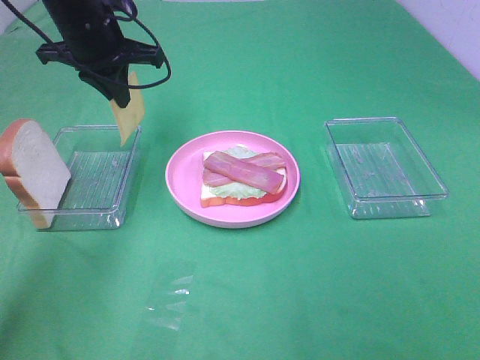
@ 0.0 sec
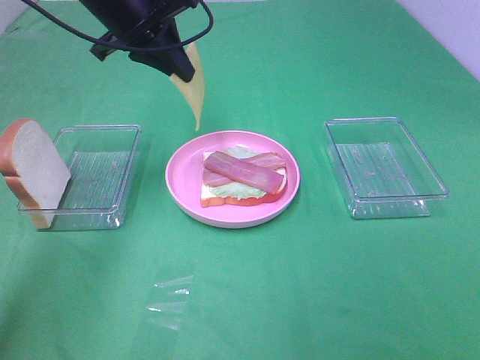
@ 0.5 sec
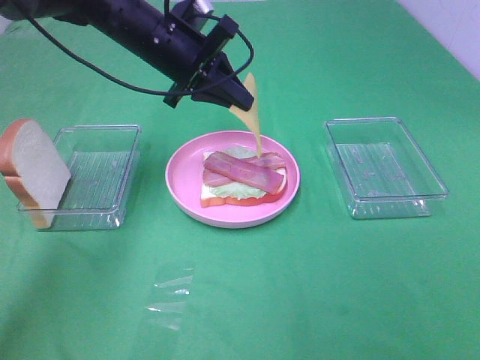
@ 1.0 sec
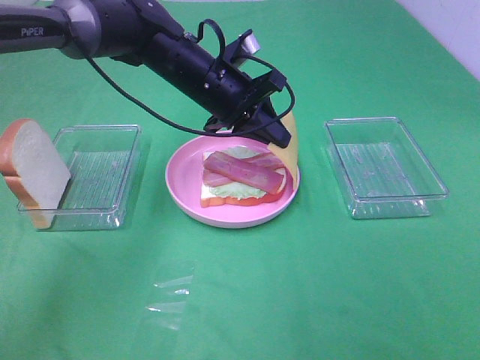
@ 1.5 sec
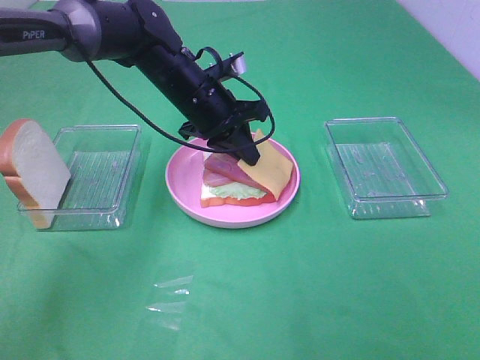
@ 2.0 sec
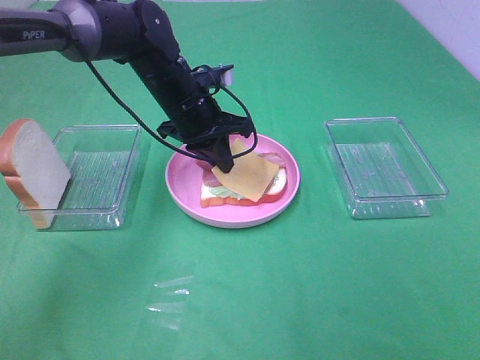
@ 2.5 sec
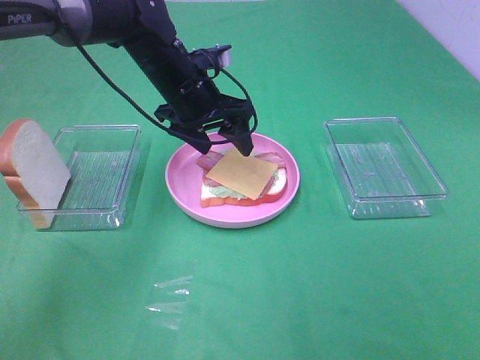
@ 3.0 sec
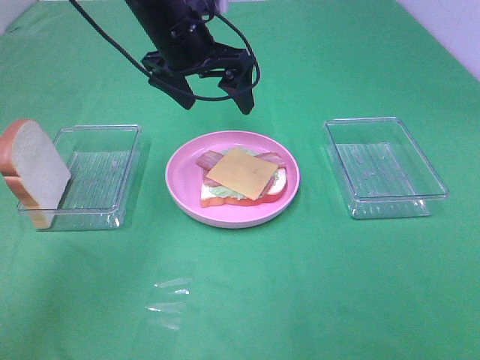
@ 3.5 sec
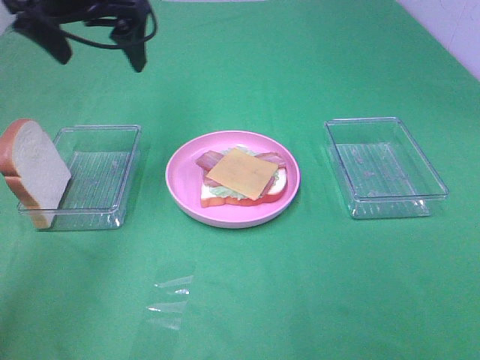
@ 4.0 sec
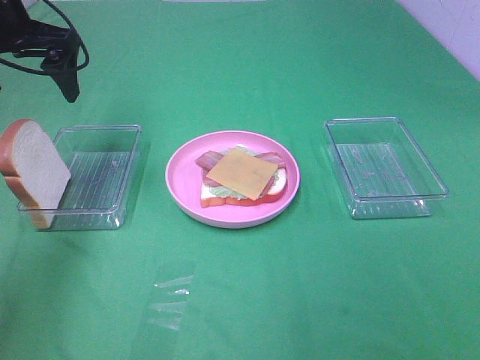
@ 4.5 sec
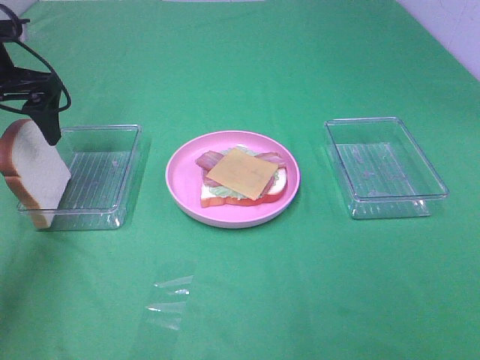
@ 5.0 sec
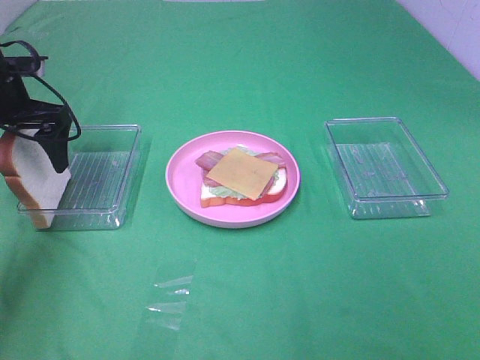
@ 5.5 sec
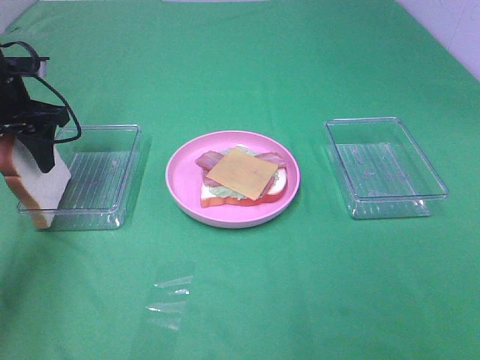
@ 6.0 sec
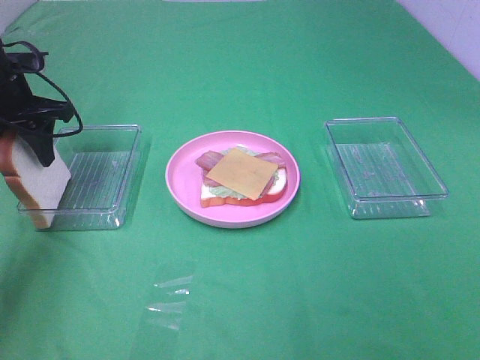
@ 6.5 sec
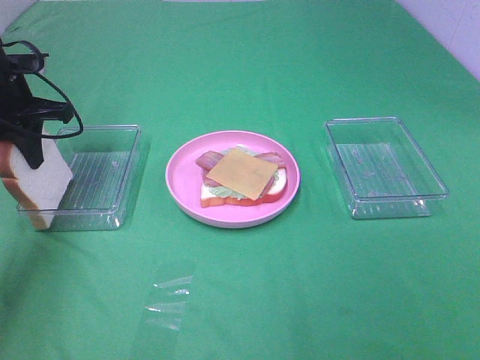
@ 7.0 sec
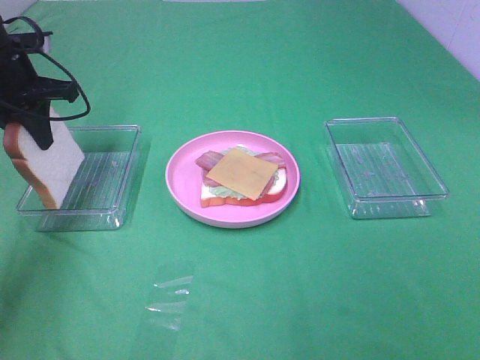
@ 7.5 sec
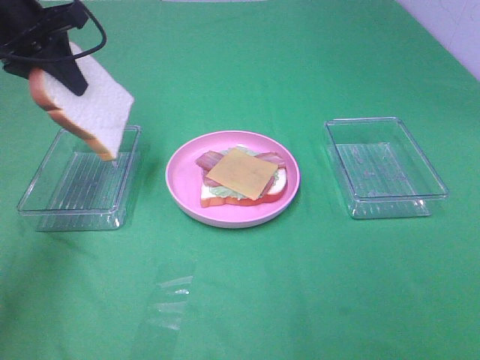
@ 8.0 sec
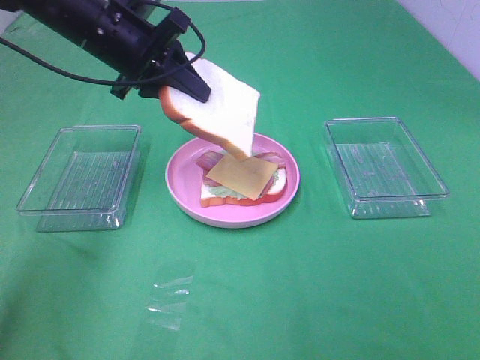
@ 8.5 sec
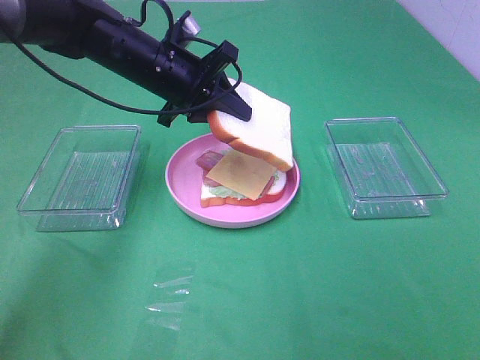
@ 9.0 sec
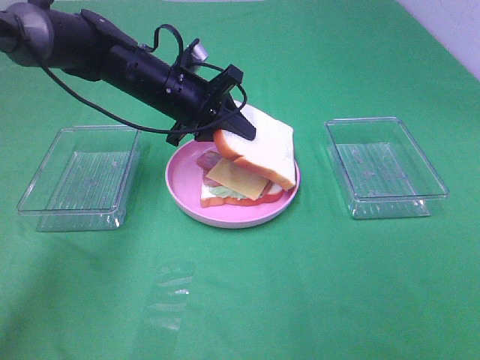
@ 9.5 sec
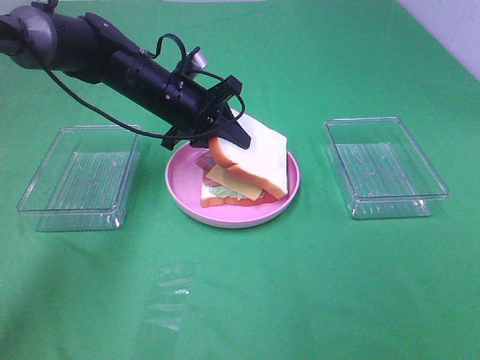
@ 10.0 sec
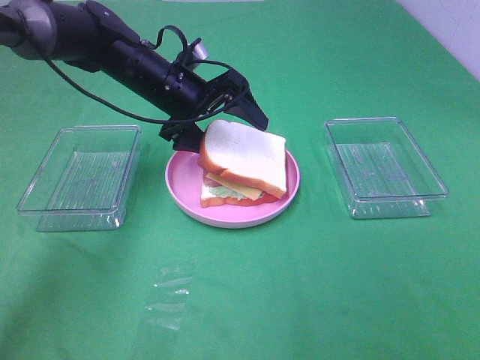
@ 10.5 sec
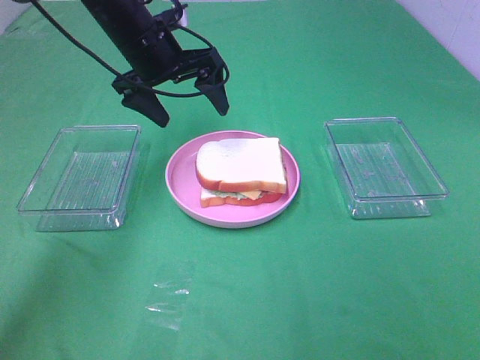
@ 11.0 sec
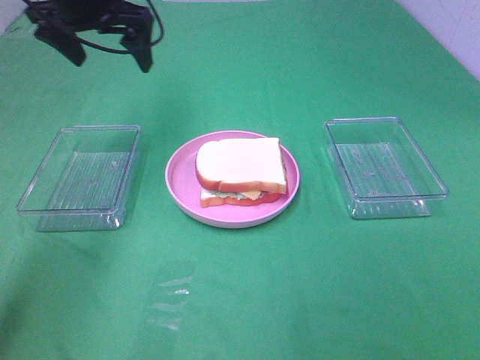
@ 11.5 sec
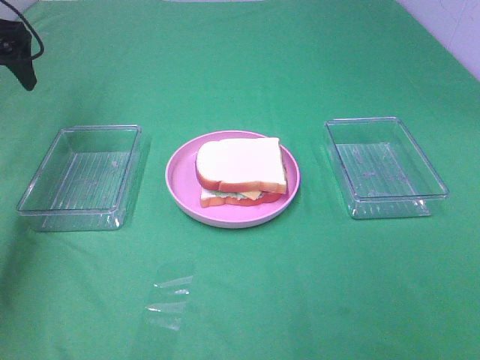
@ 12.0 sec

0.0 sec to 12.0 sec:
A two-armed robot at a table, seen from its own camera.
Task of the whole recording: Make sandwiches.
Step, 0.0 sec to 3.0 sec: Left hand:place the cheese slice on top of the bacon.
Step, 3.5 sec to 7.0 sec: Left hand:grab the bread slice.
Step, 7.5 sec to 11.0 sec: Left hand:place the bread slice on the cheese slice.
0.0 sec to 2.0 sec: The left gripper is displaced to the right and downward by roughly 15 cm.
2.0 sec to 4.0 sec: The left gripper is displaced upward and to the left by roughly 20 cm, and opens its fingers.
4.0 sec to 6.0 sec: The left gripper heads downward and to the left, covering roughly 15 cm, and closes.
6.0 sec to 8.0 sec: The left gripper travels upward by some 10 cm, and closes up.
8.0 sec to 10.0 sec: The left gripper travels to the right and downward by roughly 20 cm.
10.0 sec to 12.0 sec: The left gripper travels to the left and upward by some 25 cm, and opens up.

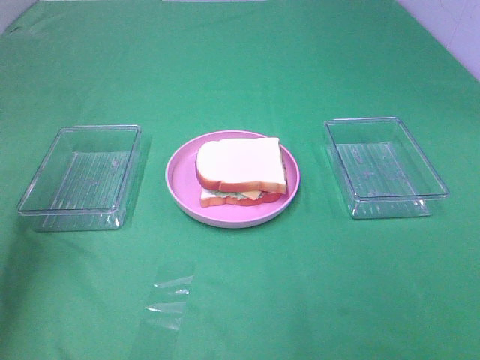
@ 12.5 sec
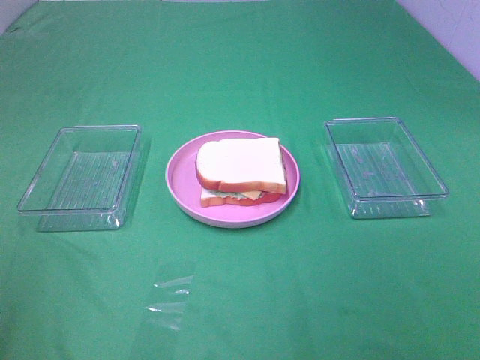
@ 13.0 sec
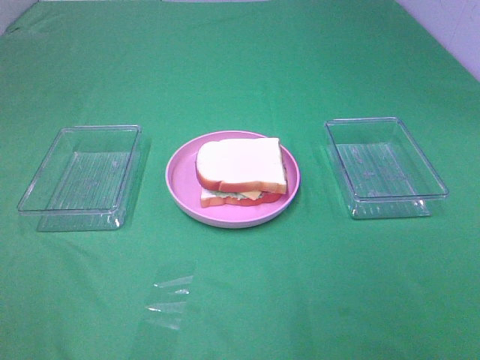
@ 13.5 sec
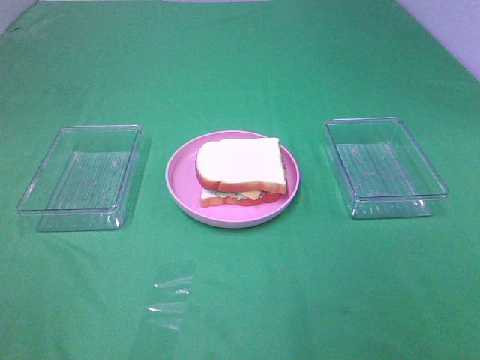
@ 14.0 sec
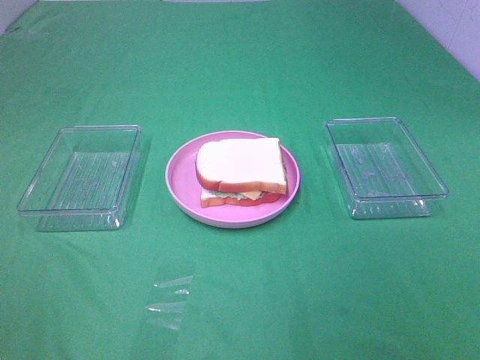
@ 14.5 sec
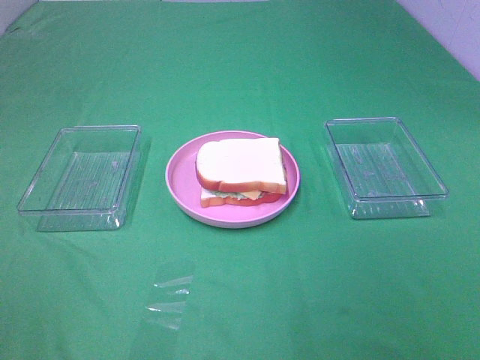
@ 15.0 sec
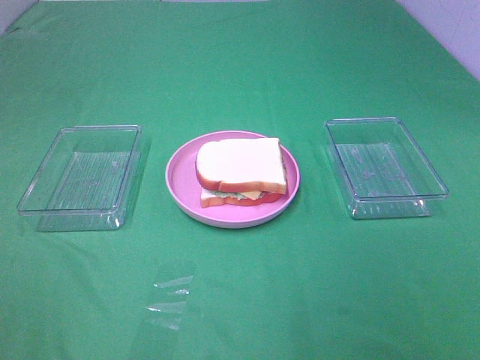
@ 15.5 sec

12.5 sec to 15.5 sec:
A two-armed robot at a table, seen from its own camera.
Task of the whole recording: Make sandwiches.
12.5 sec to 14.0 sec: The left gripper is displaced backward by approximately 30 cm.

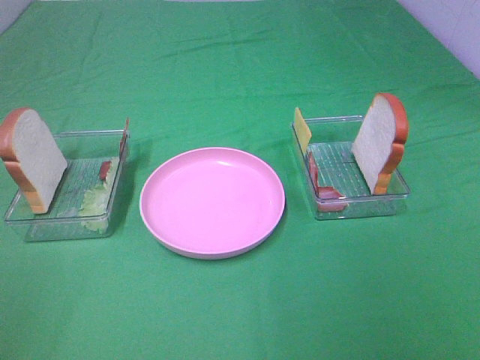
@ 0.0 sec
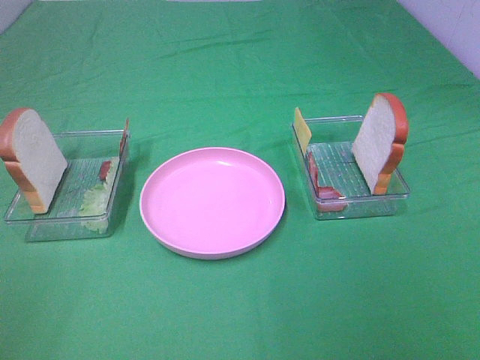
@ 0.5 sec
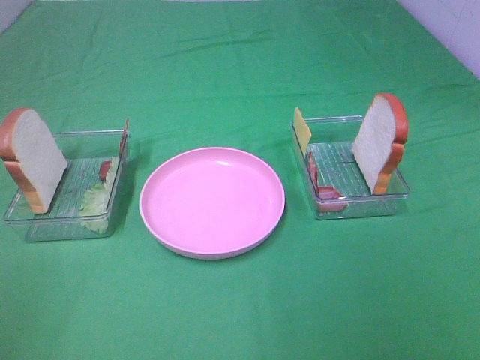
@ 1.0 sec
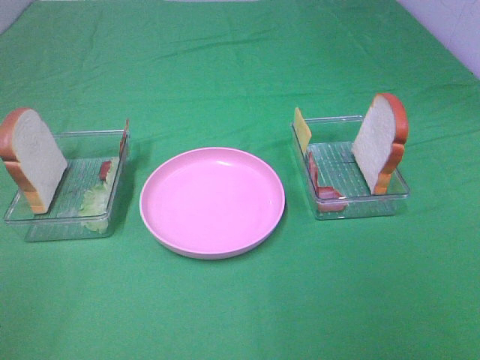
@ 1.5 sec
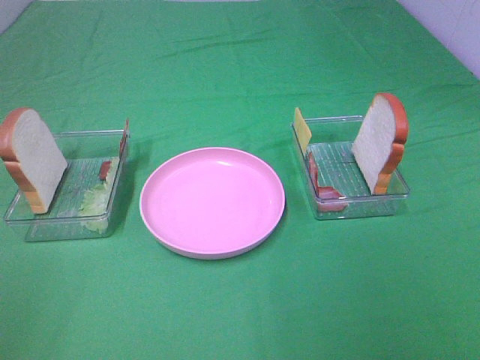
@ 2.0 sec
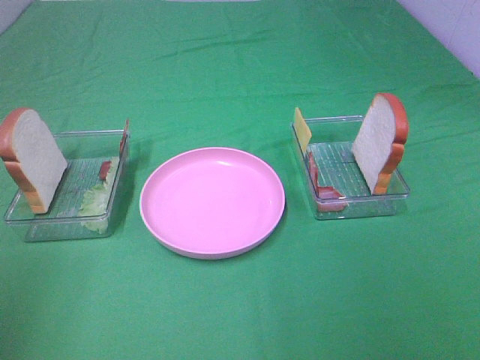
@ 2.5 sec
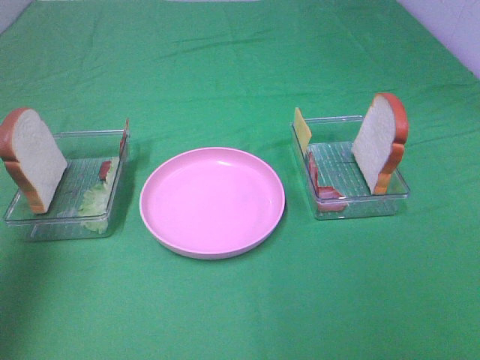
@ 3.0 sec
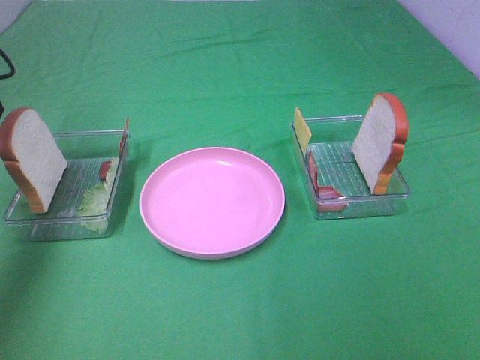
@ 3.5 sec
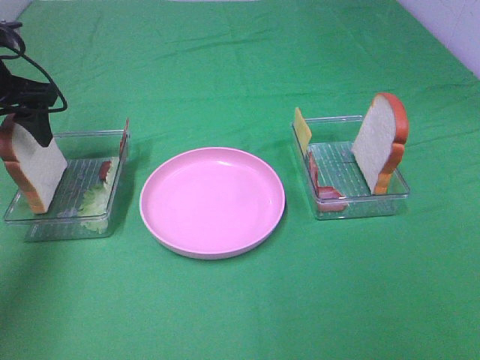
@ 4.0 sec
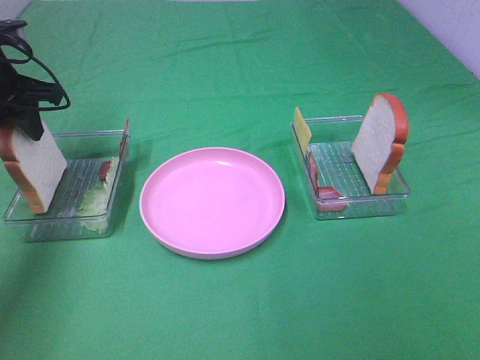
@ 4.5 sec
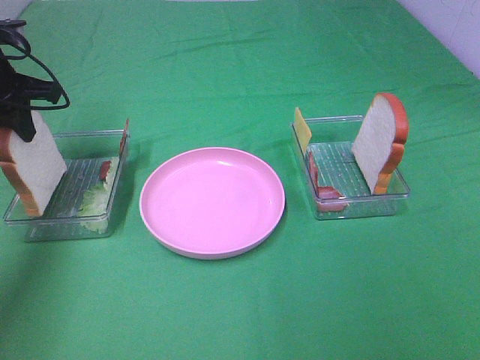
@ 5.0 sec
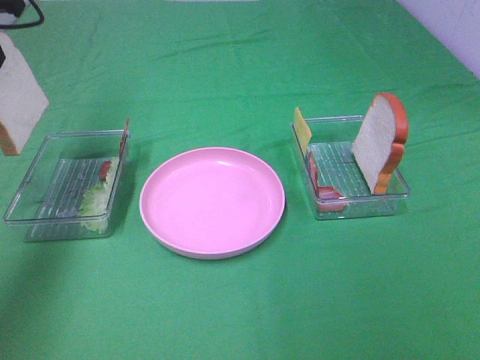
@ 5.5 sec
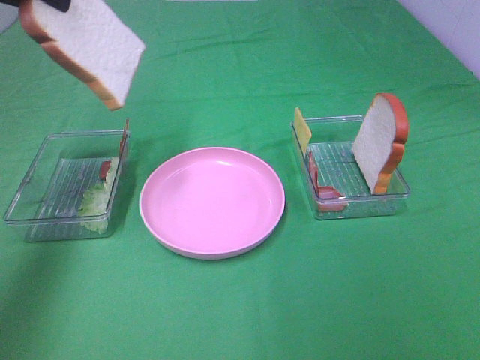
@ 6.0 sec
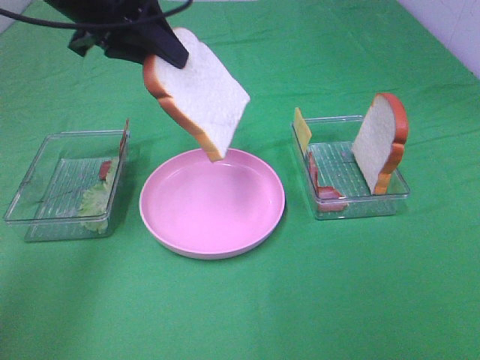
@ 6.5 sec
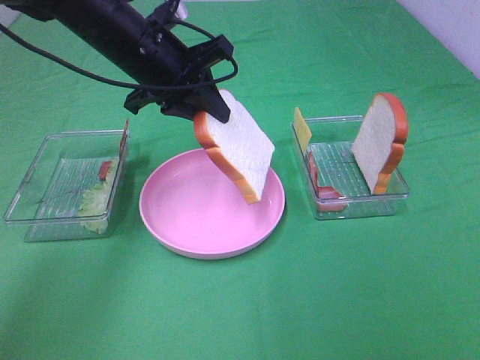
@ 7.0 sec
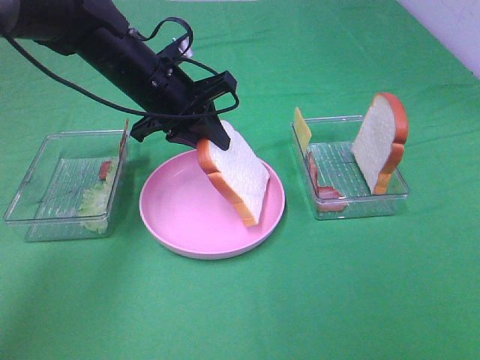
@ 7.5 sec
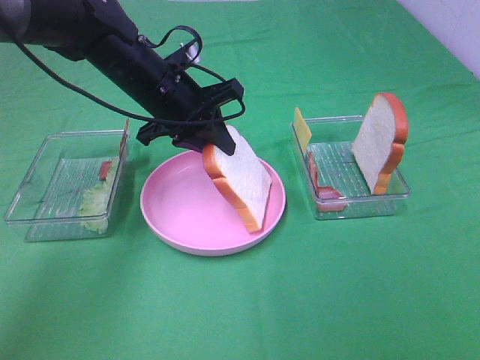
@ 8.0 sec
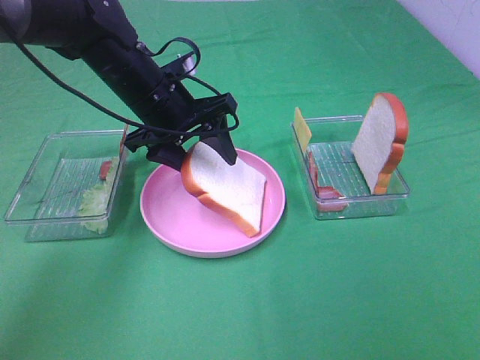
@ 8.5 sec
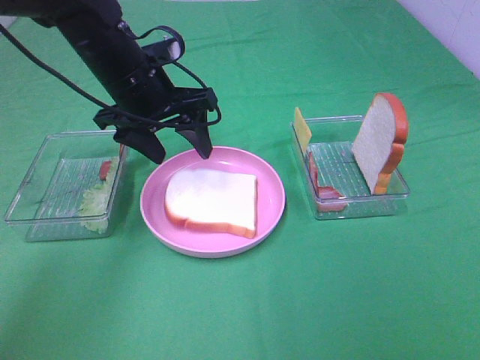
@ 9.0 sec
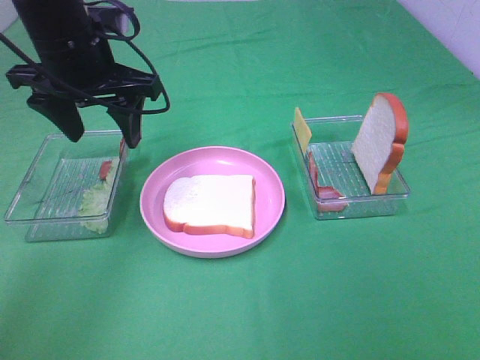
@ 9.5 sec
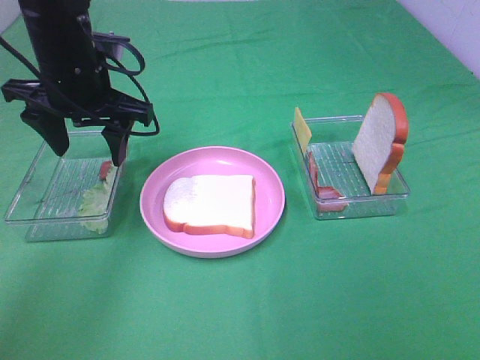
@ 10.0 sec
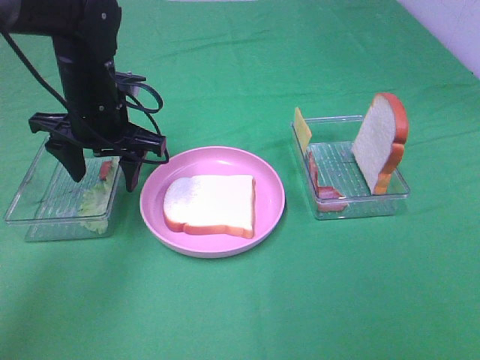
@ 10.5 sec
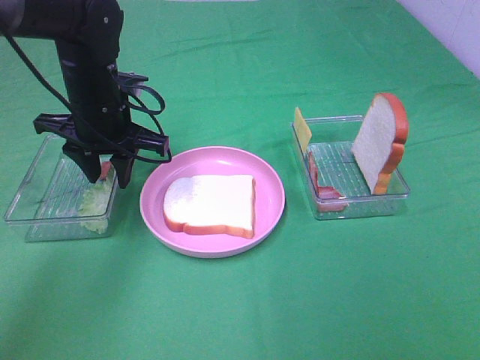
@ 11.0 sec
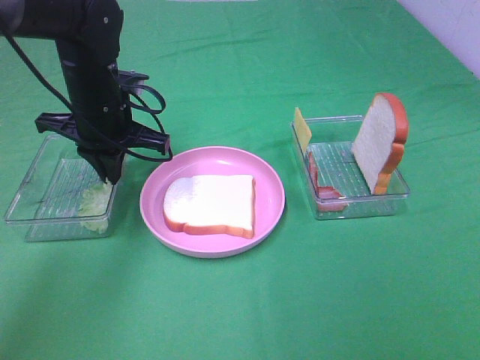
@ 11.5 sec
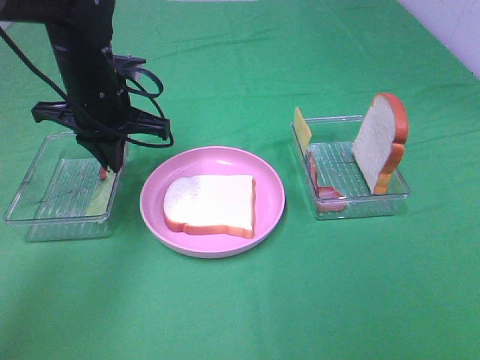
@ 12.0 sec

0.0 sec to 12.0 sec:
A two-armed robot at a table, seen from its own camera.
Task of the whole recording: Make sandwiches.
Step, 0.0 sec to 4.5 sec: Left hand:grab the bread slice.
Step, 5.0 sec to 9.0 sec: Left hand:place the bread slice on the plate.
Step, 9.5 sec to 11.5 sec: Left hand:grab the lettuce slice.
0.0 sec to 2.0 sec: Neither gripper changes place.
2.0 sec to 4.0 sec: The left gripper shifts some 40 cm forward.
4.0 sec to 6.0 sec: The left gripper travels upward by approximately 15 cm, and closes up.
6.0 sec to 8.0 sec: The left gripper goes approximately 25 cm downward and to the right.
8.0 sec to 10.0 sec: The left gripper is displaced to the left by roughly 5 cm, and opens.
10.0 sec to 12.0 sec: The left gripper closes.
